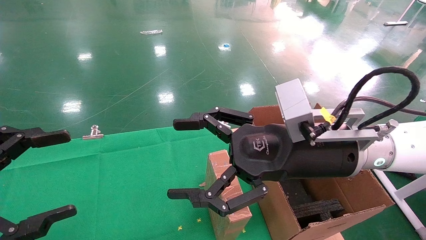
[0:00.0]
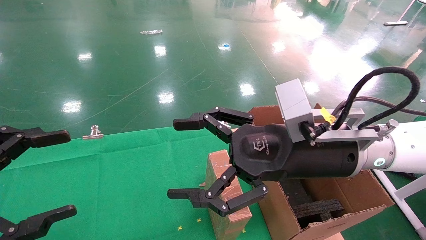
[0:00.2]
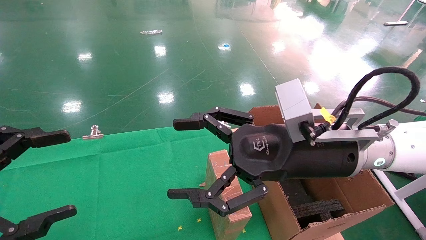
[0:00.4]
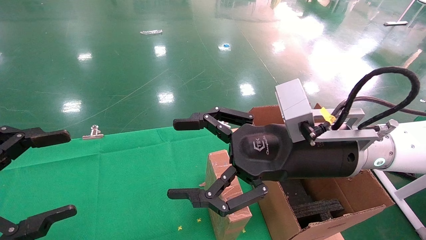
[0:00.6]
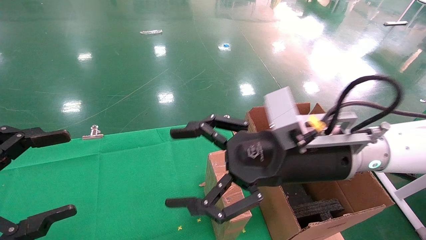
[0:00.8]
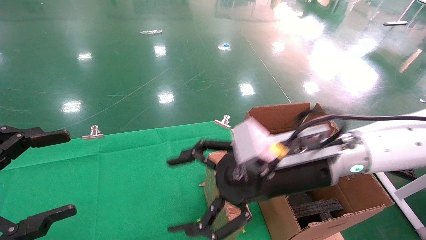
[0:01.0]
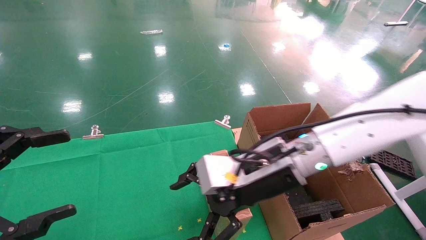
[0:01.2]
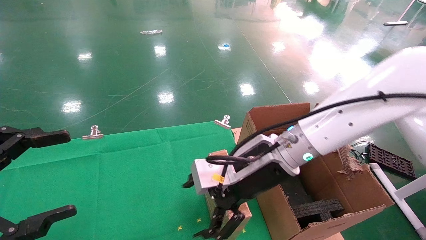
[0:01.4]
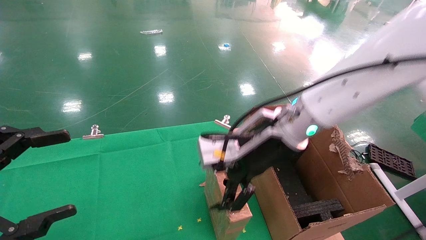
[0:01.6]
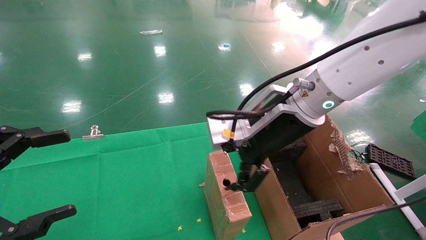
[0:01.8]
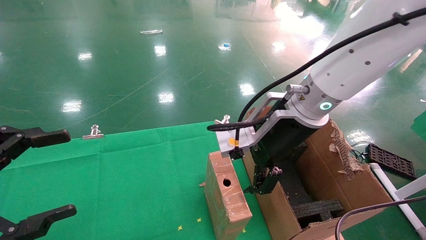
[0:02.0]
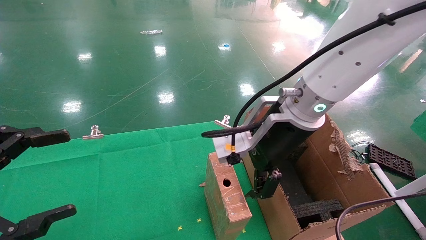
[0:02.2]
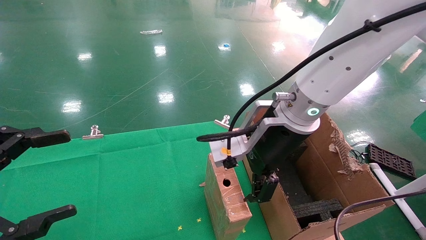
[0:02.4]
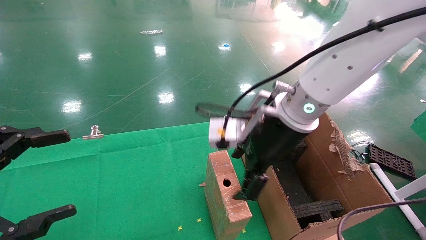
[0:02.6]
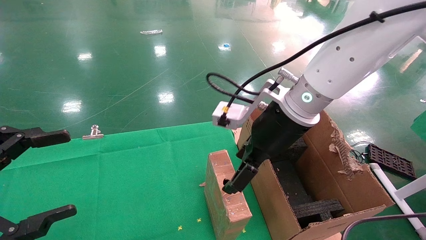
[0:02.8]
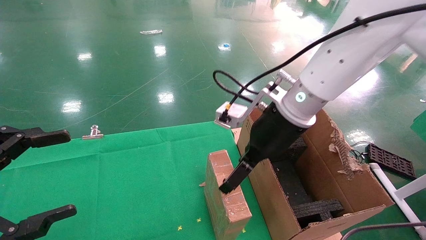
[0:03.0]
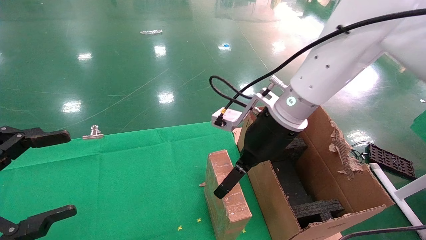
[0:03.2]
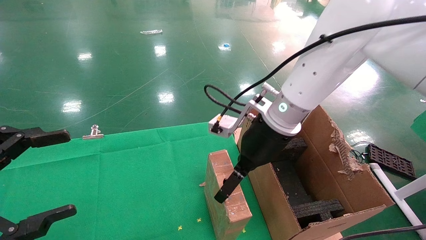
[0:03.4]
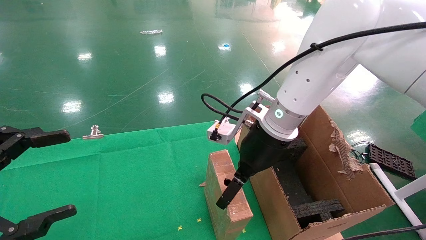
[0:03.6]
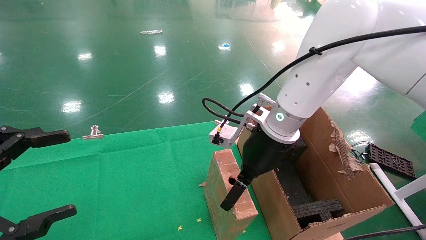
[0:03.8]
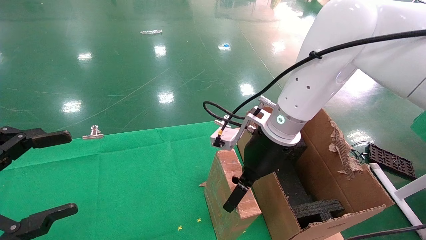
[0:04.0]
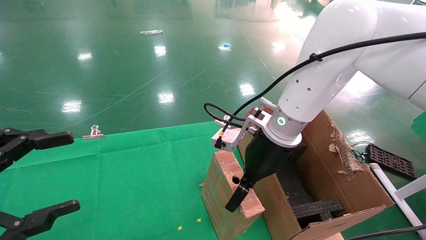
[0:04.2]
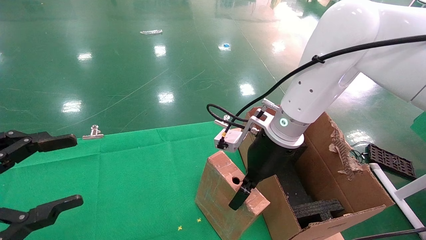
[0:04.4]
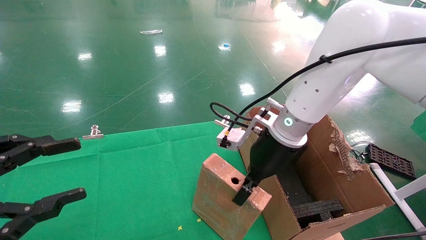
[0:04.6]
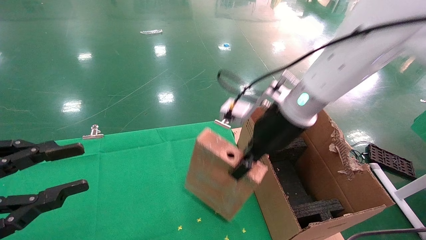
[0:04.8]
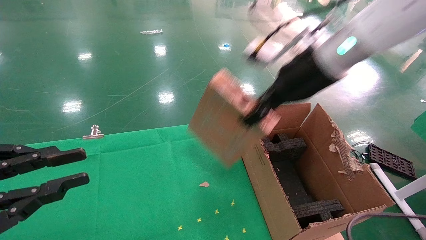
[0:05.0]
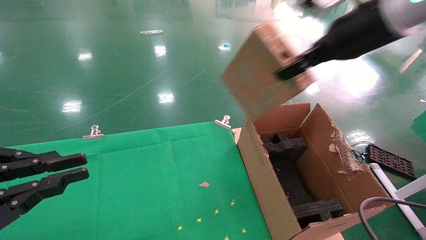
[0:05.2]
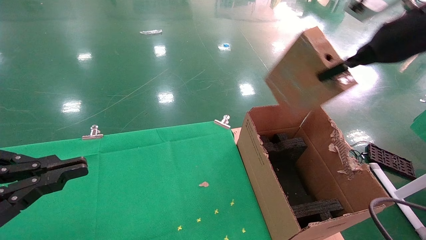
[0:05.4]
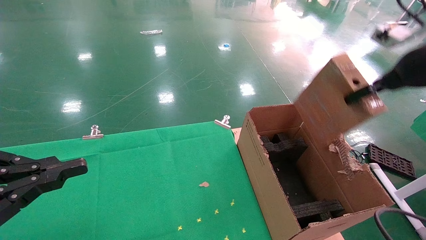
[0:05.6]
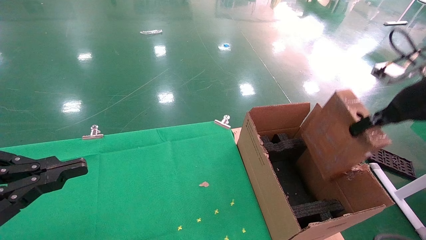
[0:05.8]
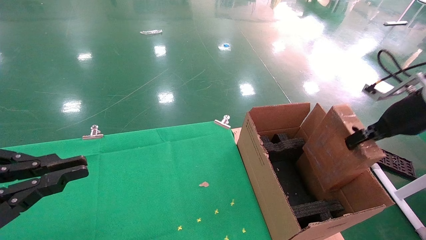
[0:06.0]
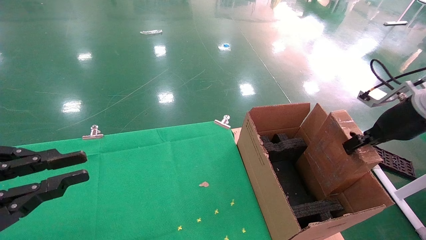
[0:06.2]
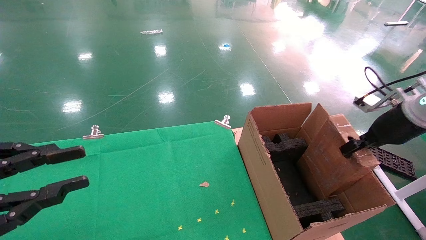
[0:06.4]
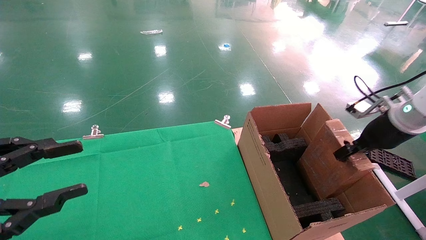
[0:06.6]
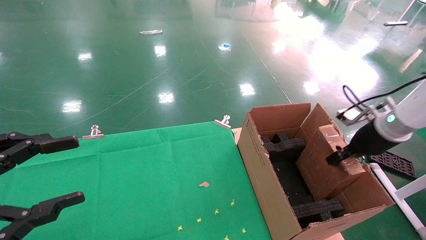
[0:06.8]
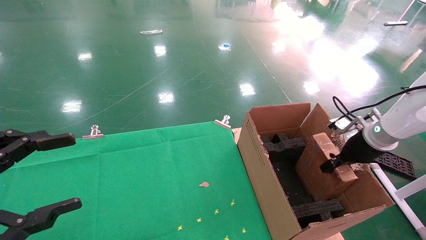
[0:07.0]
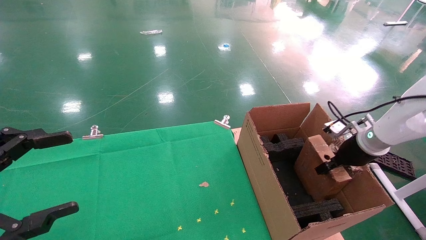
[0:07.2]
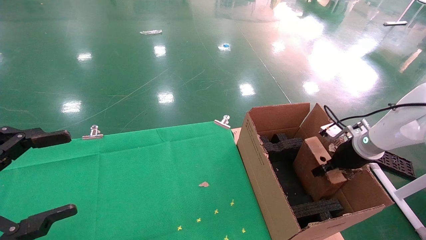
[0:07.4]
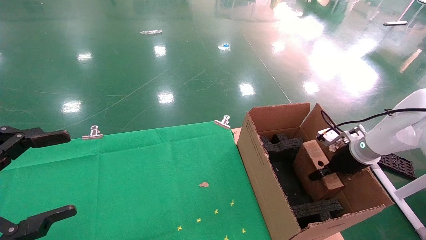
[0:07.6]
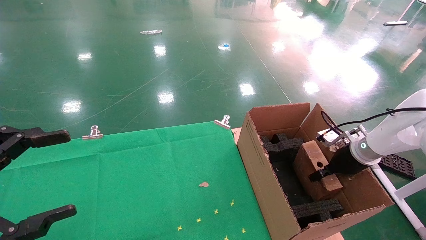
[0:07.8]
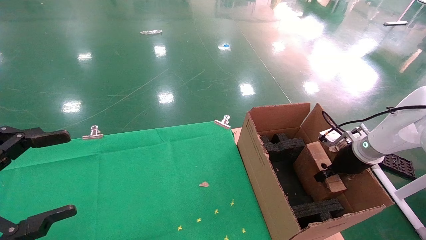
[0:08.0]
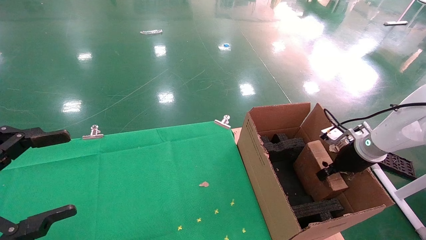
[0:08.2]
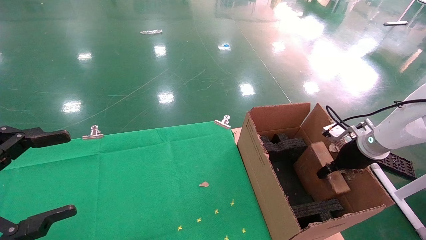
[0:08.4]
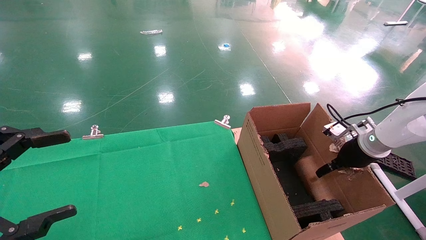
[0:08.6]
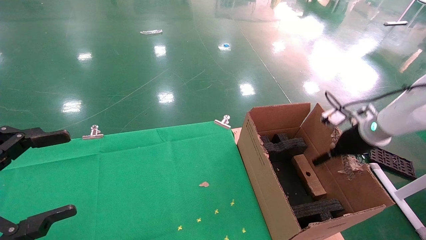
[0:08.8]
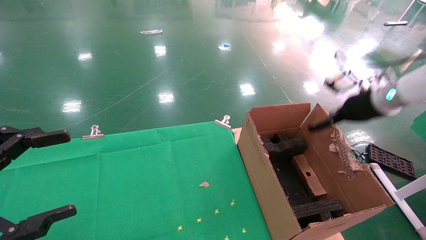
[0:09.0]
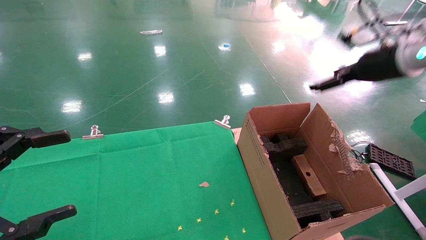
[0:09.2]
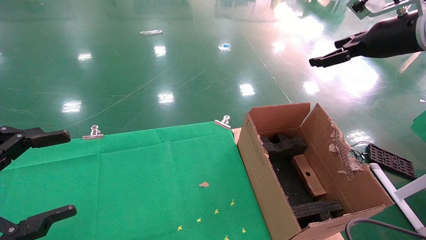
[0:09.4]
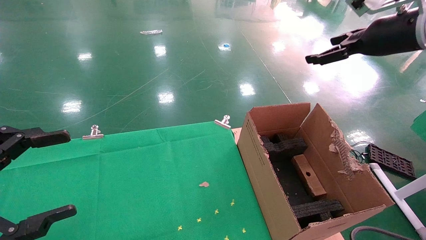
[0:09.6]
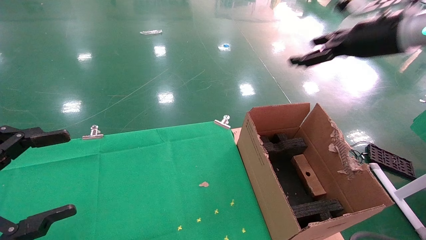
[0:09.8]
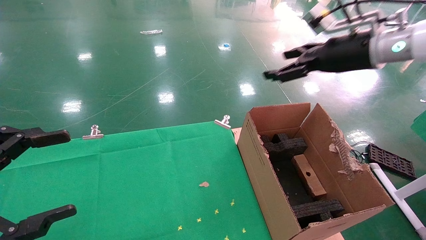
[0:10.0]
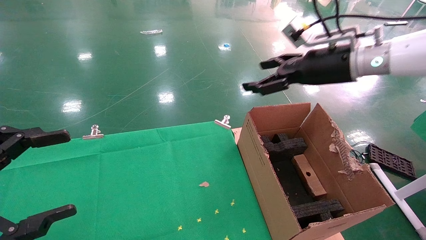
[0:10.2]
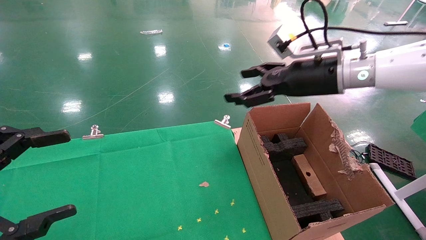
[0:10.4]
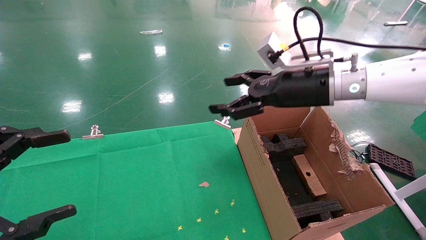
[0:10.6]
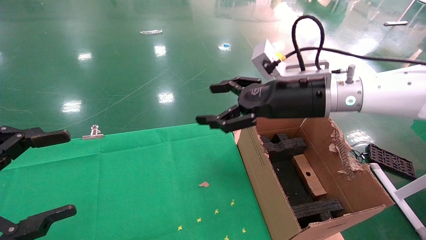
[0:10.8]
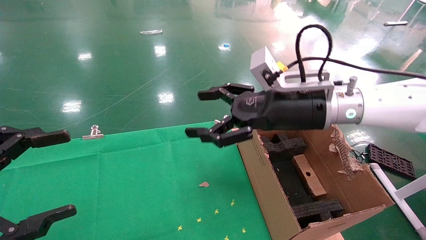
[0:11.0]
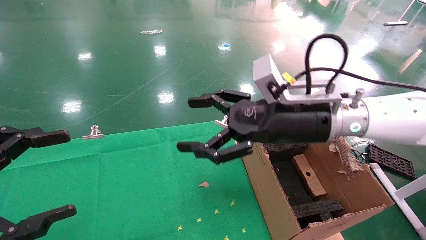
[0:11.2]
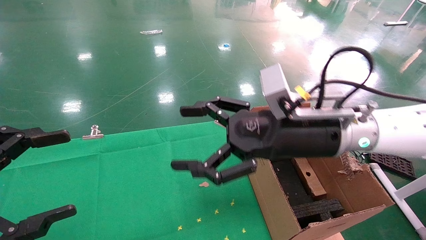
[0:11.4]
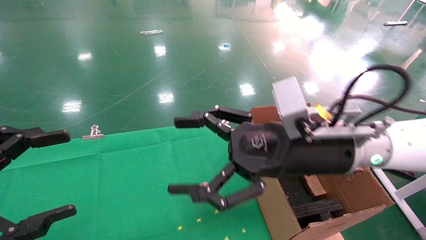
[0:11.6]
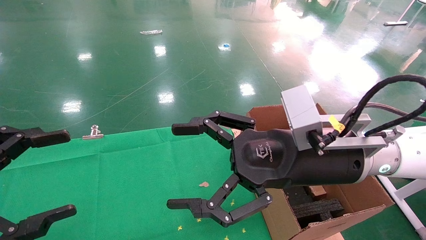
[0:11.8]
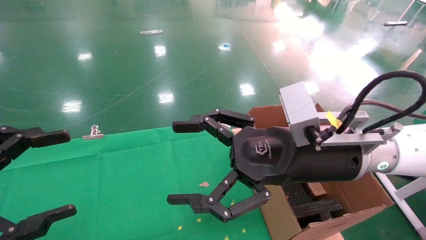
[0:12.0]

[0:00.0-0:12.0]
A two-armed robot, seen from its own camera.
Task of the whole recording: using a robotic arm to pick up a cardboard box and palace it the carton.
Step, 1.0 to 4.4 s: Pick up the mouse and the power cord paper box.
Step, 4.6 to 9.0 s: Place the mouse and the power cord paper box into the container.
0.0 to 1.6 s: The right gripper goes approximately 5 cm forward.
3.0 to 4.4 s: The right gripper closes.
4.4 to 6.0 s: The right gripper goes approximately 30 cm to the right, and closes up. Meanwhile the left gripper closes up.
6.0 to 7.6 s: The left gripper opens its fingers, while the right gripper travels downward and forward by approximately 20 cm.
7.6 to 9.0 s: The right gripper travels upward by roughly 15 cm, and opens up.
9.0 to 10.4 s: The right gripper shifts roughly 15 cm to the left.
10.4 to 12.0 s: The right gripper heads backward, to the left and downward, covering approximately 15 cm.

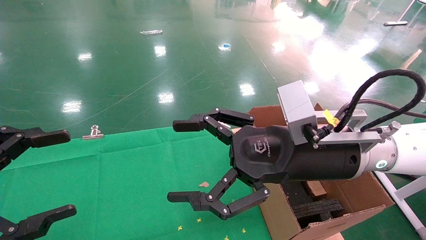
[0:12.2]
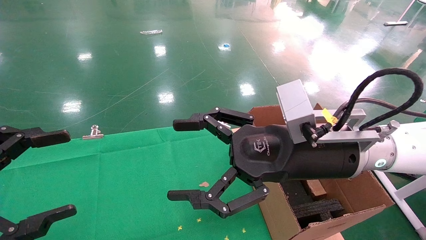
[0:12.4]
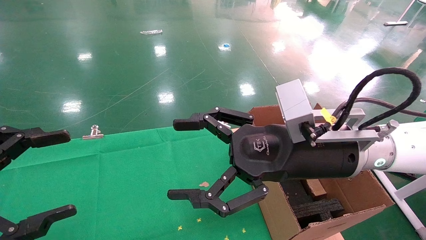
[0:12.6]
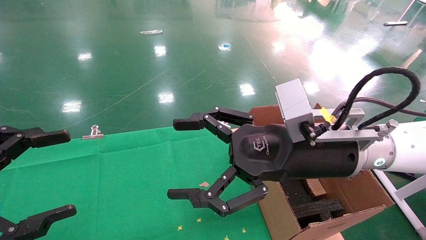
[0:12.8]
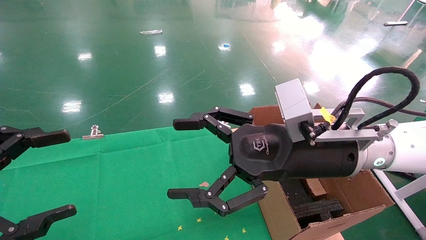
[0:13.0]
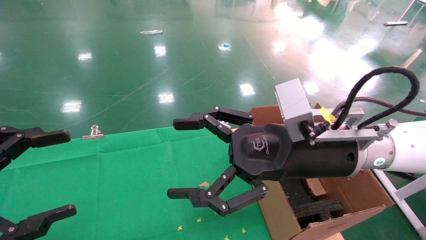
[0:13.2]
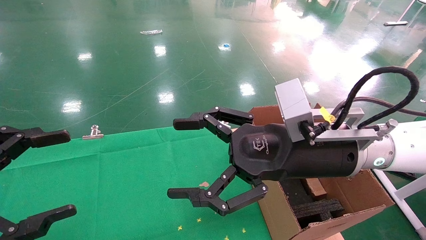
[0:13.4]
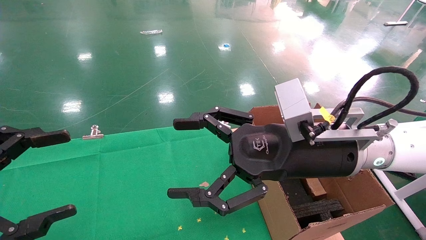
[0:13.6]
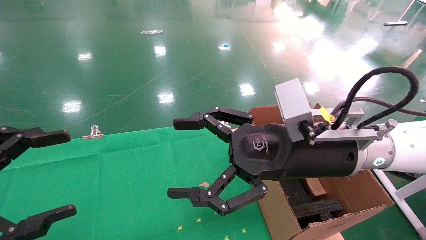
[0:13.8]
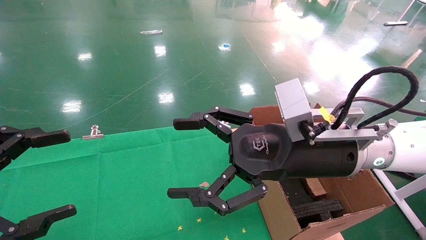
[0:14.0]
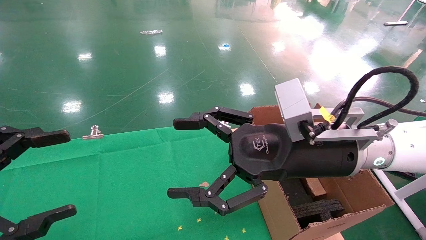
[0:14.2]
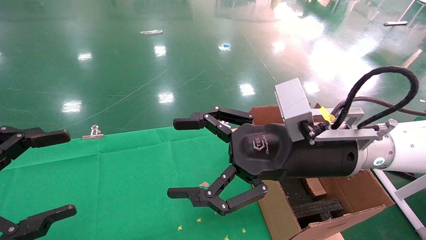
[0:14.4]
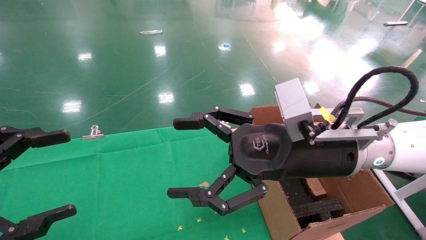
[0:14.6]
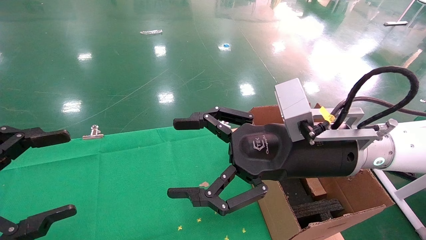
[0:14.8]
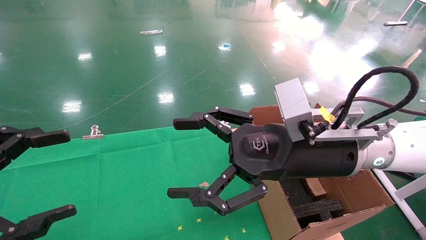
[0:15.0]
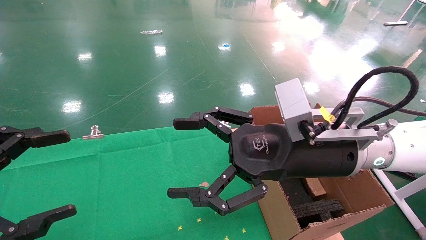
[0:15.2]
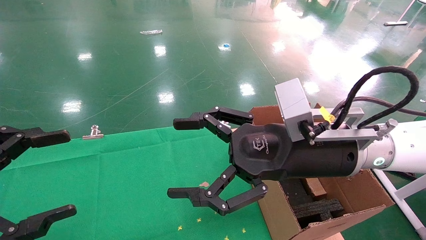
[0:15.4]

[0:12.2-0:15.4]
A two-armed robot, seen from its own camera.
Task of the whole recording: using a robotic arm to pick up a cardboard box and palace it the carton.
12.2 to 15.4 s: Neither gripper changes place.

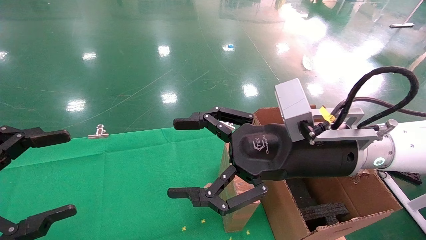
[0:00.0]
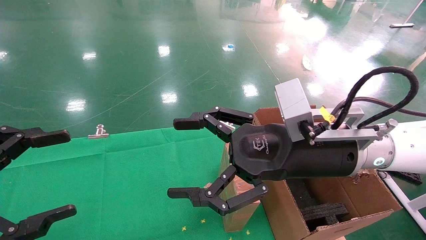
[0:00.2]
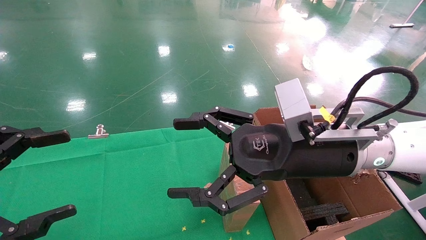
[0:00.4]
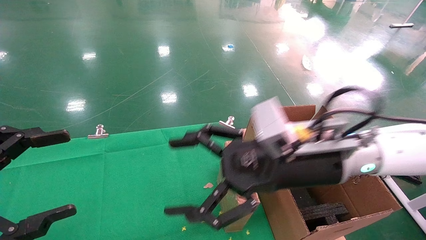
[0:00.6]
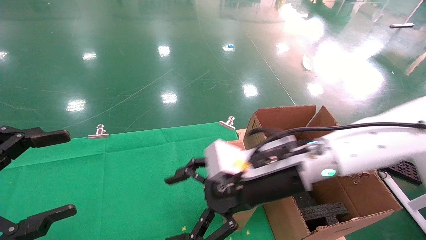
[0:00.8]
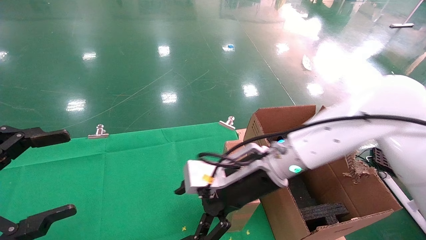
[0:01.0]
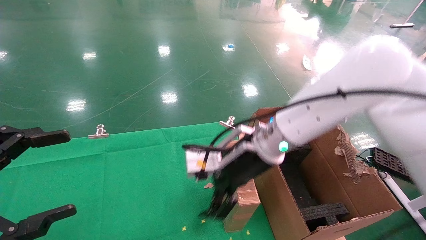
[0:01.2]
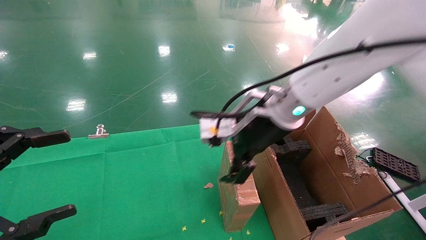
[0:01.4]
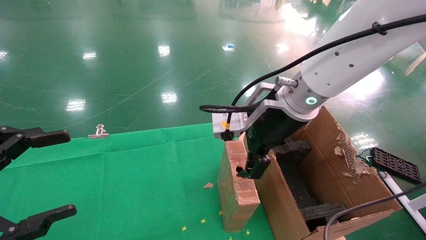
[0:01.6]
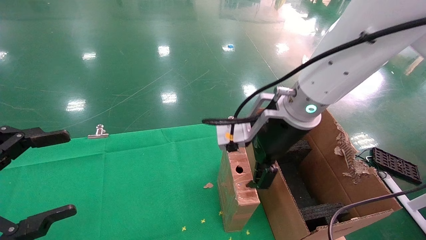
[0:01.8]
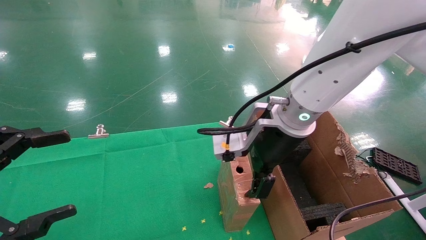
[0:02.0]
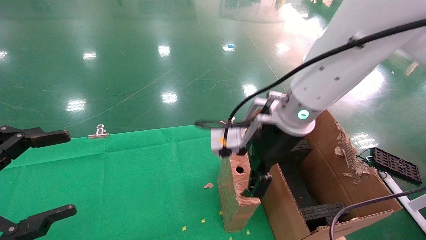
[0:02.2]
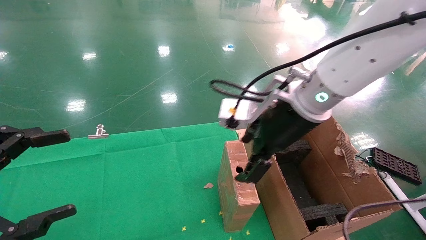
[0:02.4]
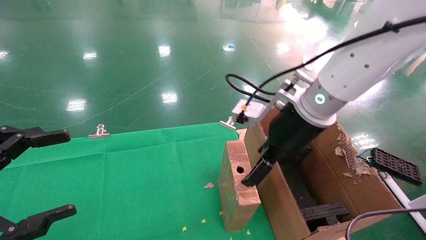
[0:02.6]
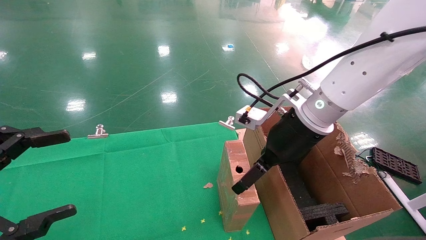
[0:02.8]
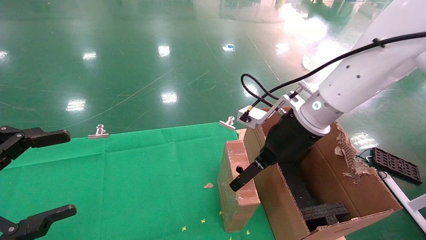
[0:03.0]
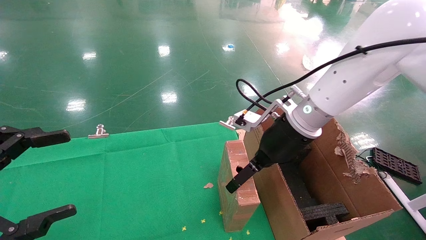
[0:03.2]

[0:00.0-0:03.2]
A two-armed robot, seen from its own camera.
Task of the whole recording: using a robotic arm to pick up a cardboard box and palace it the carton.
0.0 to 1.6 s: The right gripper shifts some 10 cm forward.
1.6 to 3.2 s: The right gripper ends up roughly 5 cm from where it was.
